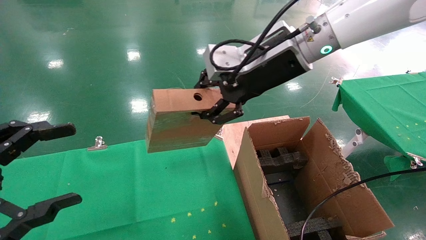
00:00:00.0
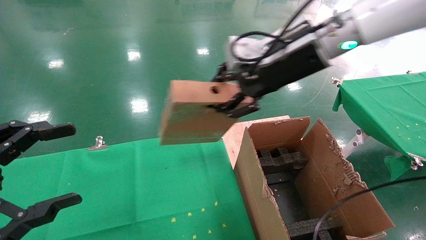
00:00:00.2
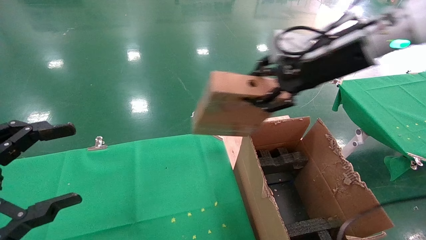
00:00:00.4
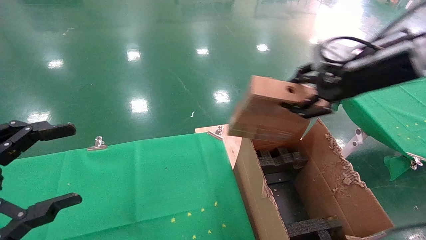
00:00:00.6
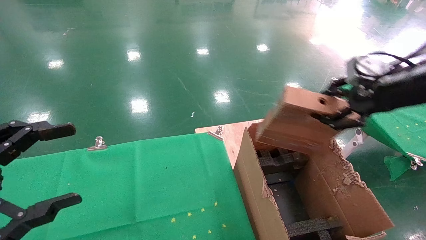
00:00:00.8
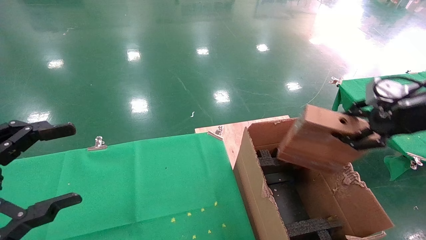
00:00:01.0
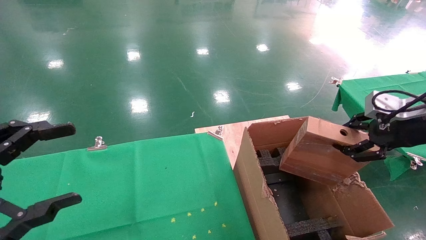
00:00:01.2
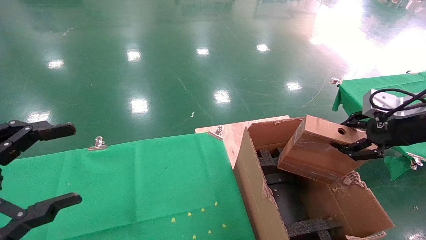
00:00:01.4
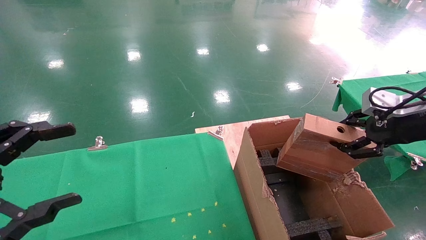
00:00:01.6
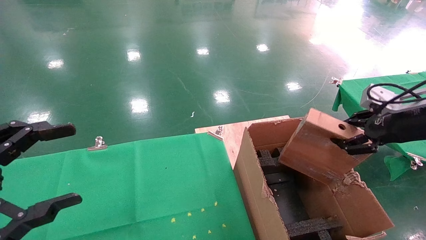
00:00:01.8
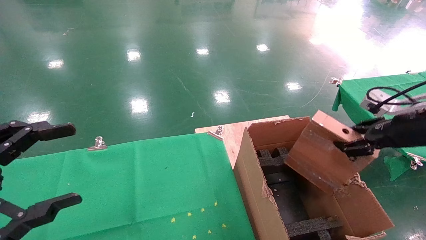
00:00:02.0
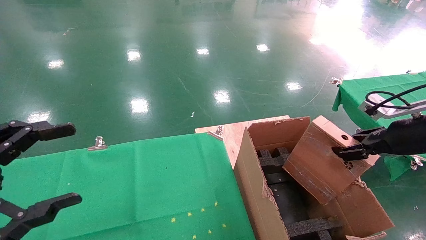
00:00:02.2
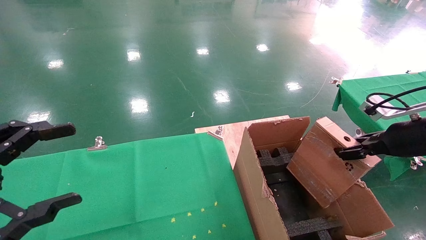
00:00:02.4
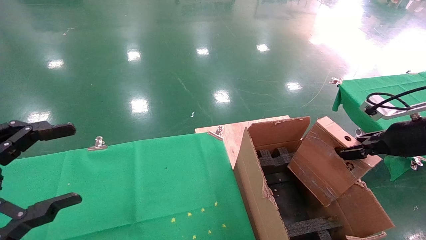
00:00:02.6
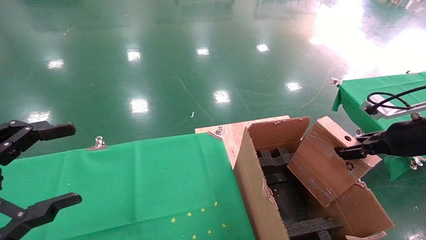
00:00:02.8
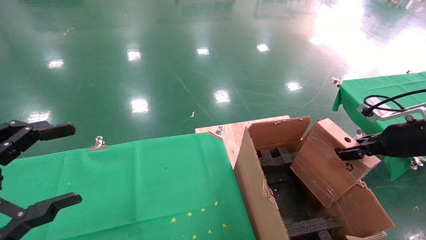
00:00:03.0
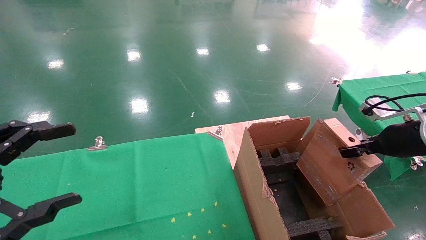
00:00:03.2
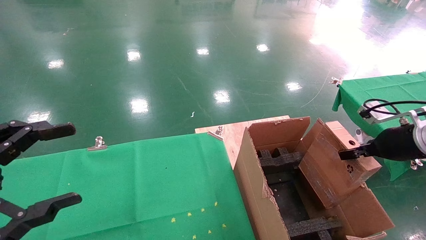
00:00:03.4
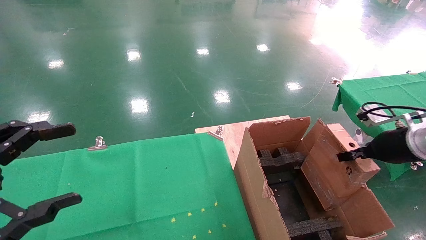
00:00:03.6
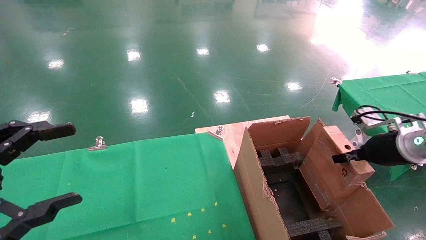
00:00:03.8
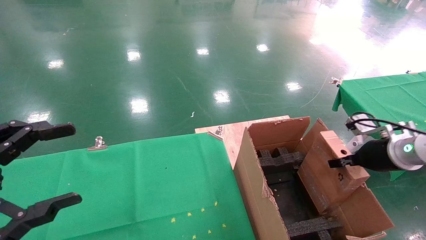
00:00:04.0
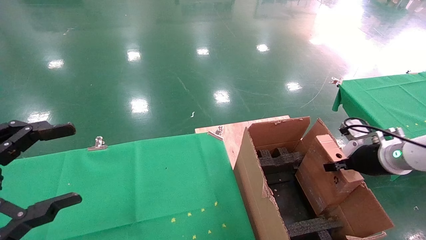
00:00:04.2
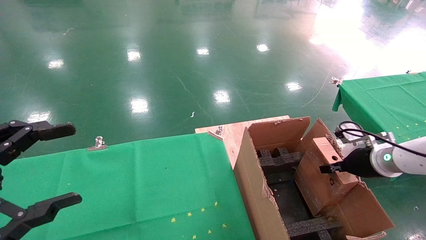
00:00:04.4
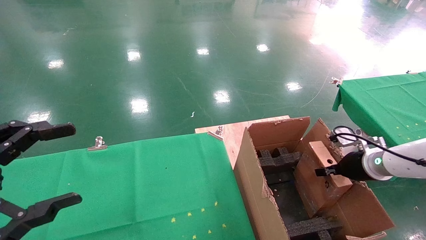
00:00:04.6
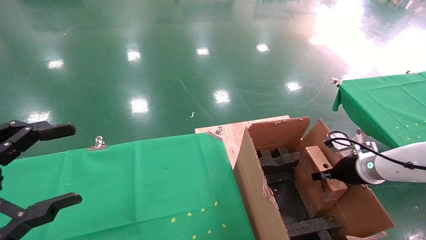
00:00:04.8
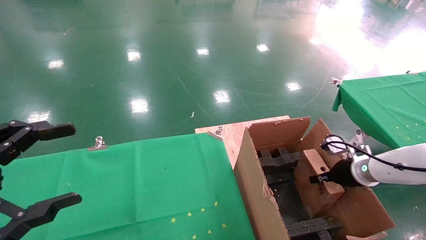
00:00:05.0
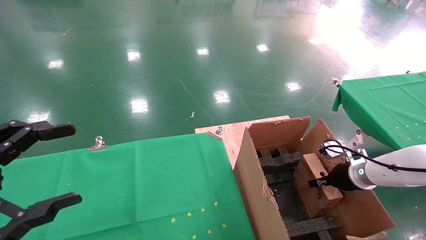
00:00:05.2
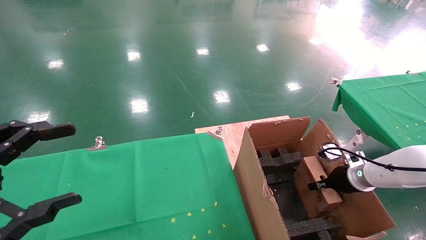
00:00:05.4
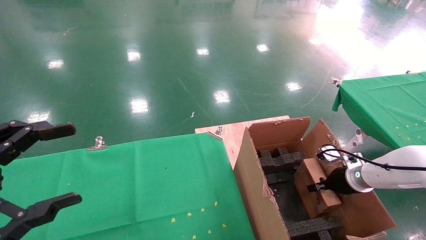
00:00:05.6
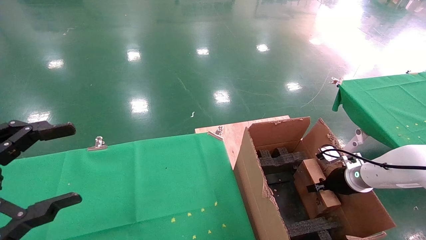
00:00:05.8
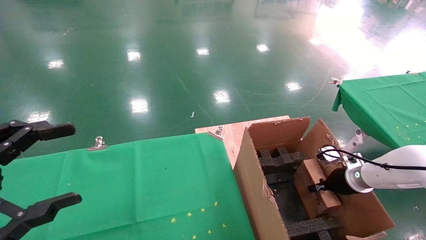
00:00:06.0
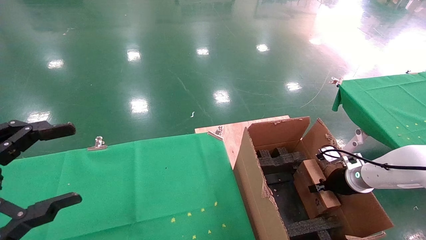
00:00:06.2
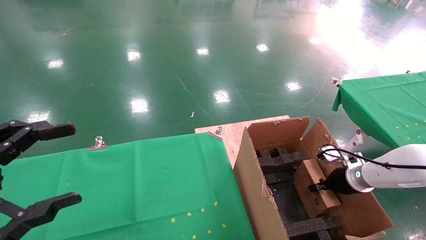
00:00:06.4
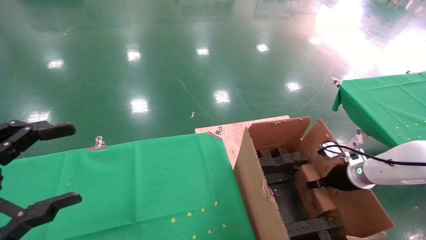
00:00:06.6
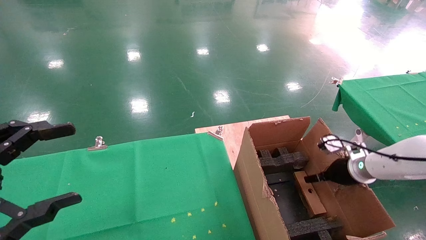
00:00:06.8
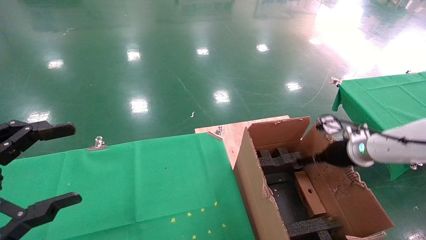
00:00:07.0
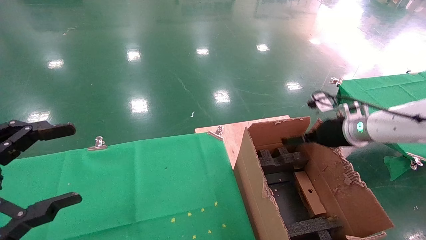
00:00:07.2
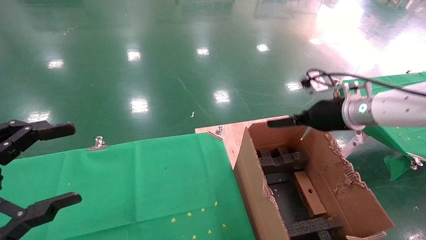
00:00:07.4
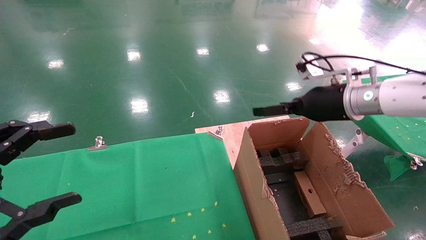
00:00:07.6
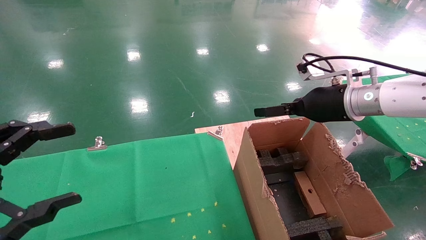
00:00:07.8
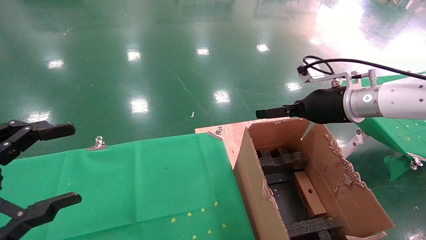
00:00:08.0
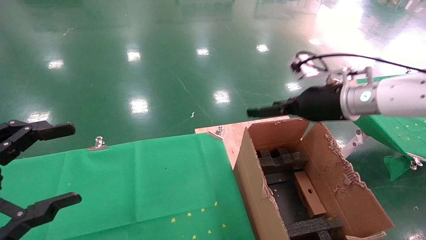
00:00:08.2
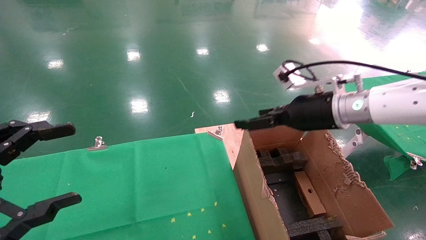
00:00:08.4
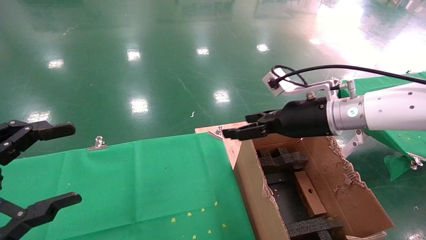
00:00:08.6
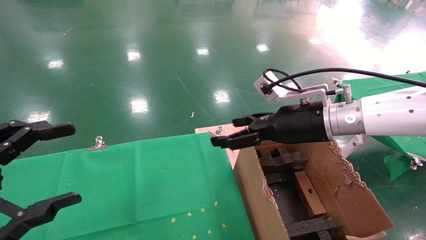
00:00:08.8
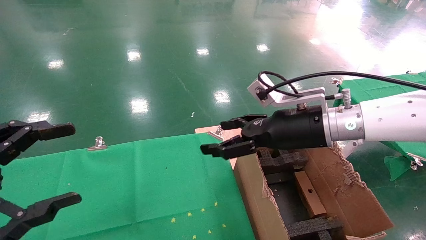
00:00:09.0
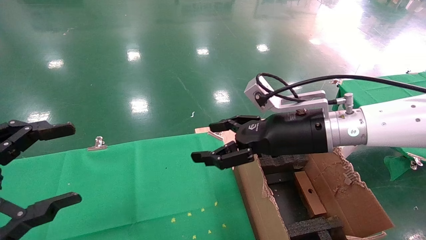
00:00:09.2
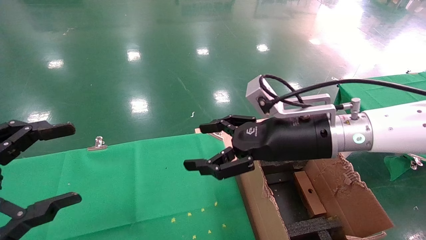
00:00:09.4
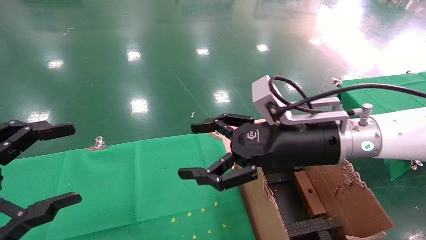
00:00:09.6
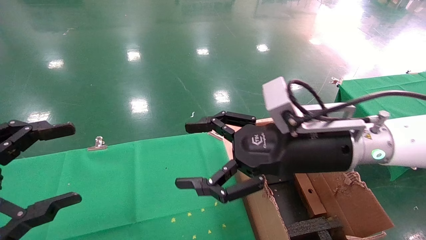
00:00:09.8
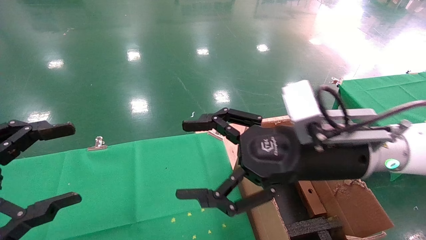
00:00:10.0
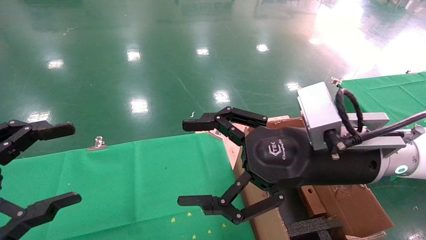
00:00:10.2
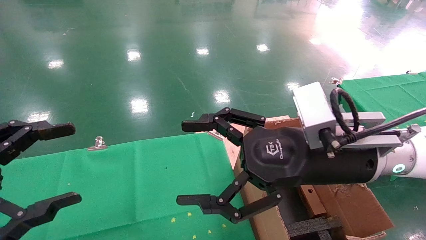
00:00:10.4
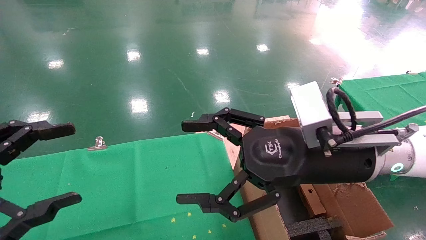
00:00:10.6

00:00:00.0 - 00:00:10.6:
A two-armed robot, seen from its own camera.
Task of the whole recording: using a robotic arm to pick up a cardboard box and palace it the carton.
Step, 00:00:00.0 - 00:00:07.2: Place the mouse and the power cord paper box into the container.
00:00:00.0 - 00:00:01.6: The right gripper goes about 25 cm to the right.
00:00:01.6 - 00:00:03.0: The right gripper shifts roughly 5 cm downward.
00:00:03.0 - 00:00:04.6: The right gripper moves downward and forward, approximately 15 cm.
00:00:04.6 - 00:00:06.0: The right gripper travels downward by approximately 5 cm.
00:00:06.0 - 00:00:07.6: The right gripper goes roughly 25 cm upward and to the left, and opens.
00:00:07.6 - 00:00:09.0: The right gripper goes approximately 10 cm to the left.
00:00:09.0 - 00:00:10.6: The right gripper is displaced backward by about 10 cm.
